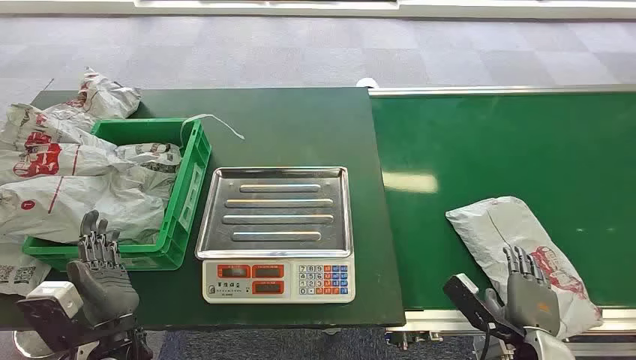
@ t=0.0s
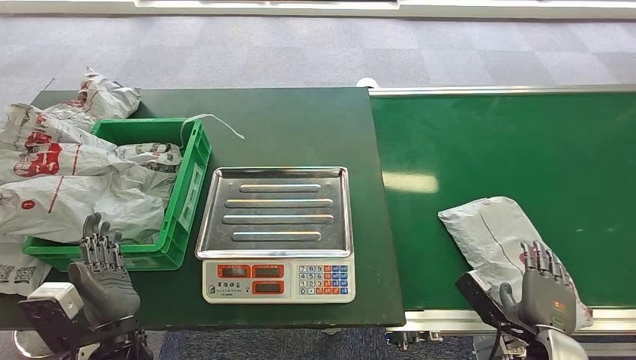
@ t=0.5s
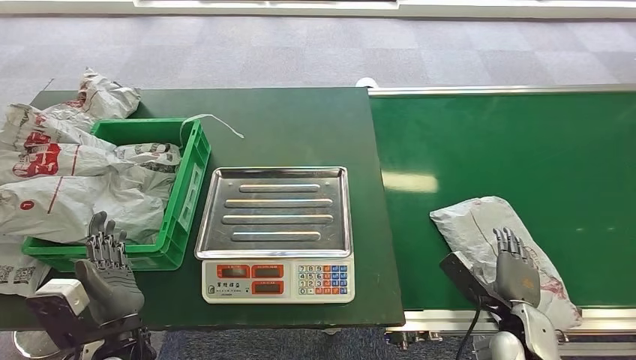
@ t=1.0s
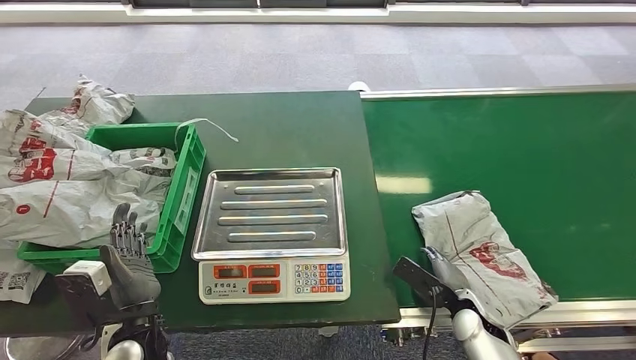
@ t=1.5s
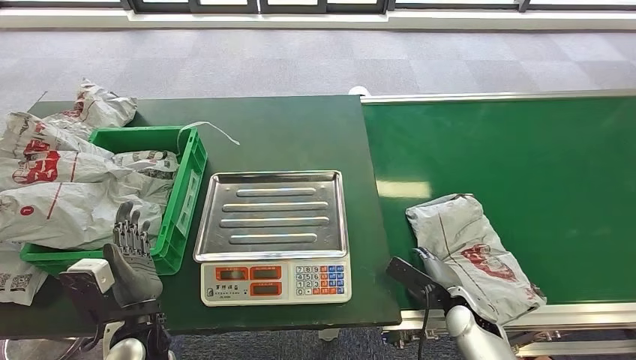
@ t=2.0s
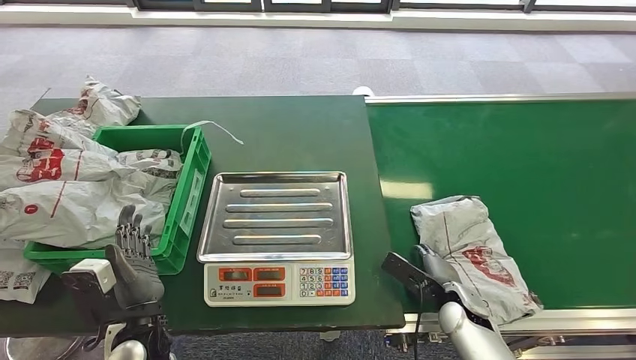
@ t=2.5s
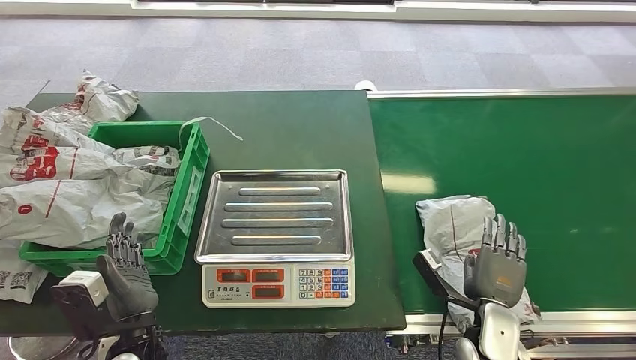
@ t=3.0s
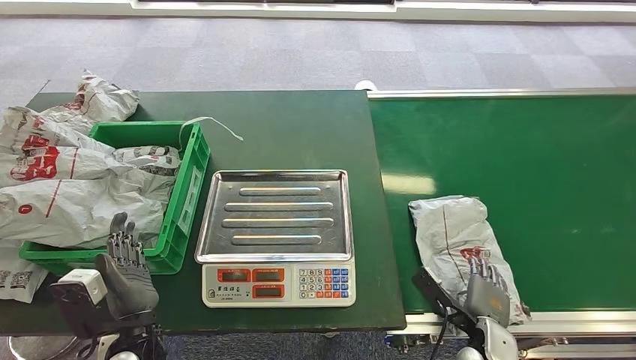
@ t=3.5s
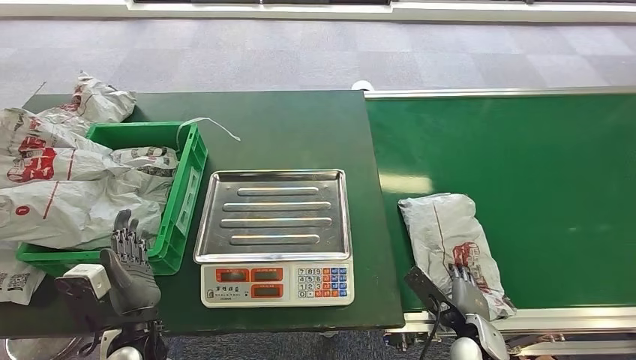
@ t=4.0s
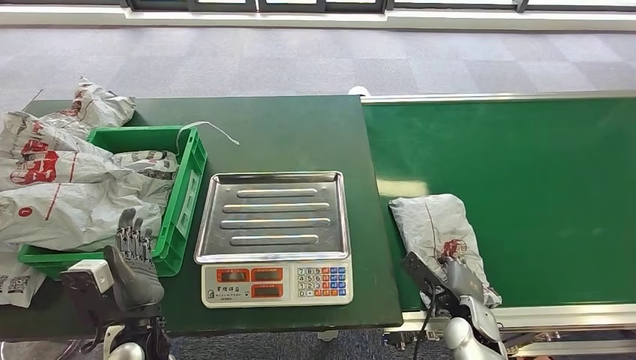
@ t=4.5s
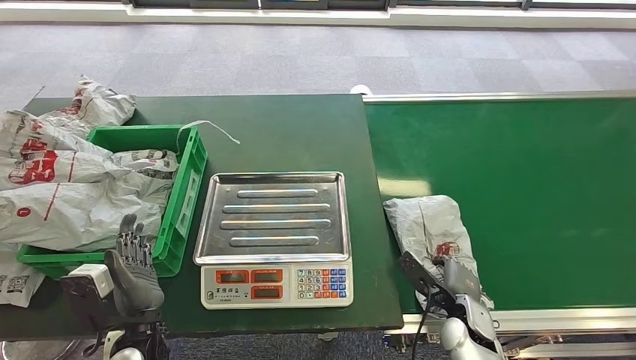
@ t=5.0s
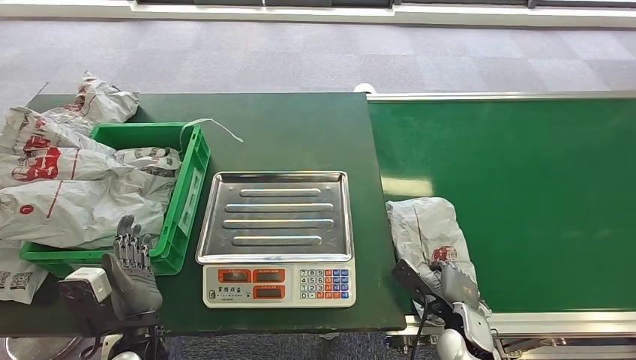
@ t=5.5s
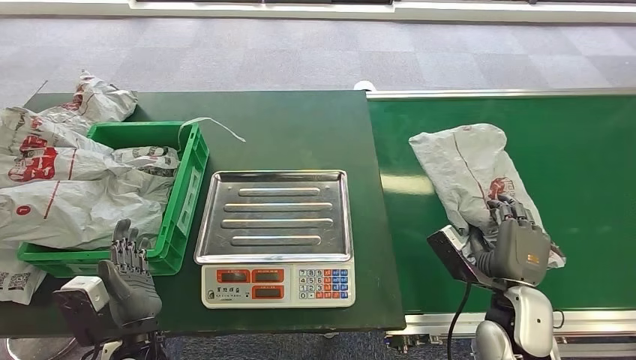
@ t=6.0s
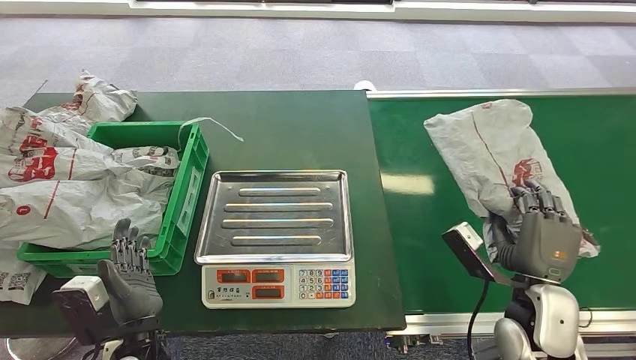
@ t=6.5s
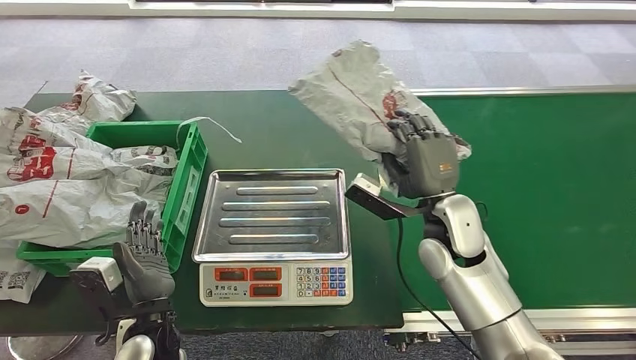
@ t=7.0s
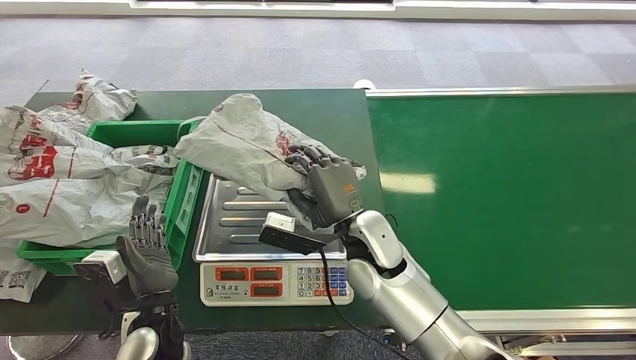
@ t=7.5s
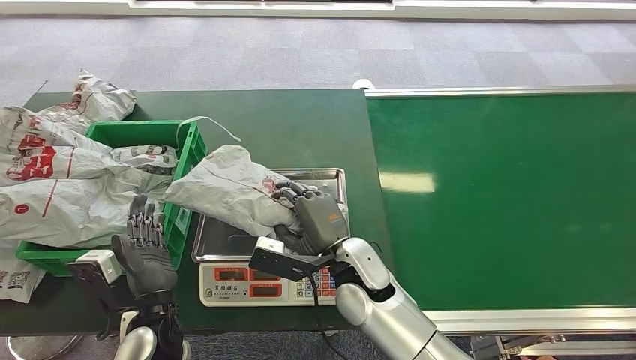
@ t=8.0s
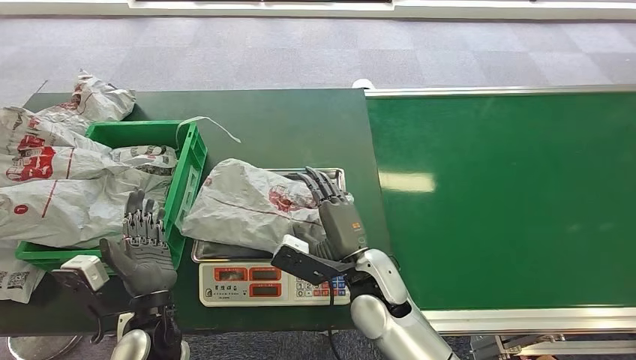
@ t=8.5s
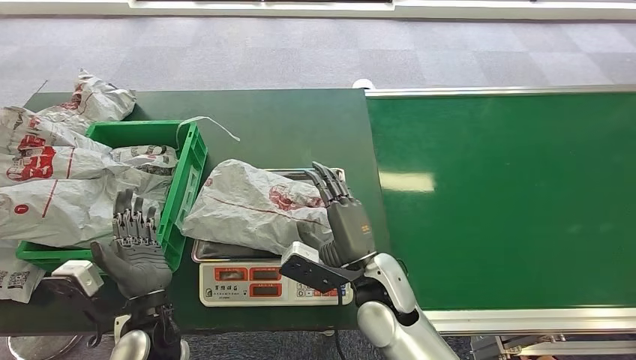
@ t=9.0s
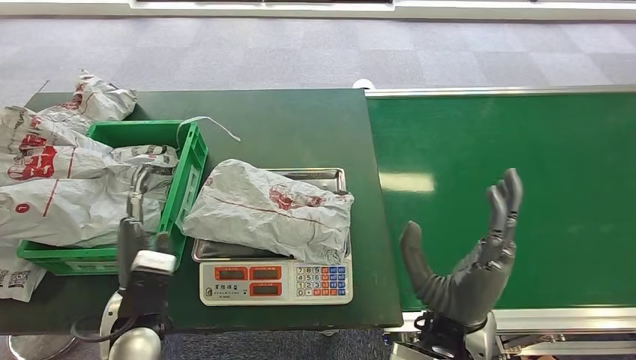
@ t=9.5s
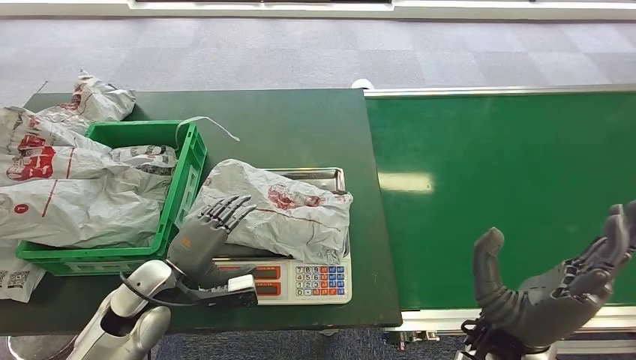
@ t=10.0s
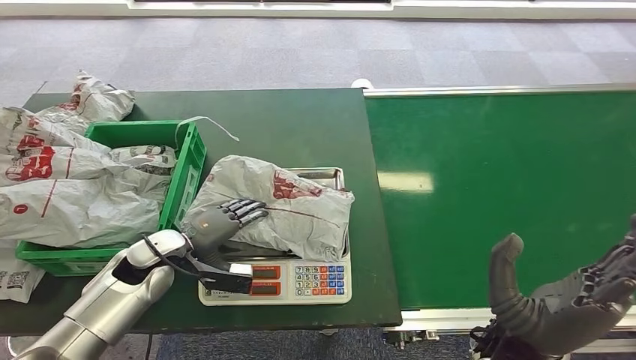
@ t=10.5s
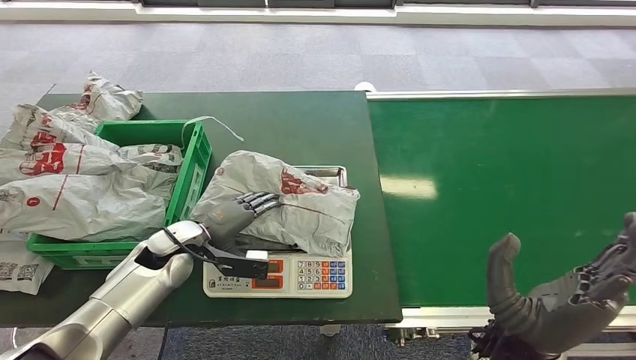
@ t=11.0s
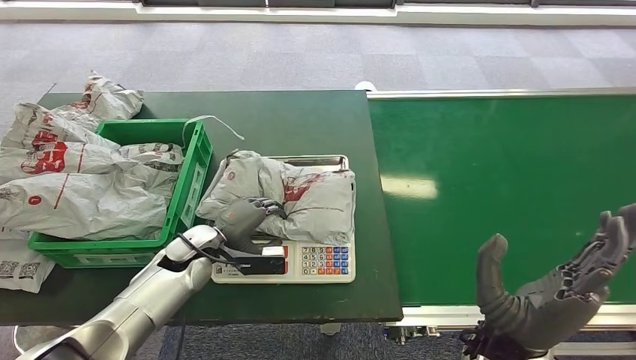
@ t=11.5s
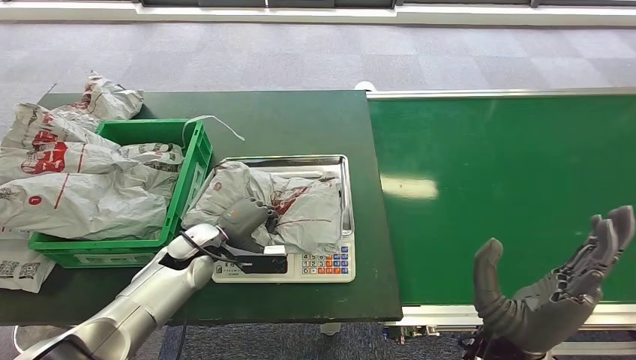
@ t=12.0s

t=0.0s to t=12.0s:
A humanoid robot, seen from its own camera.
Task of the whole recording: Weigh the package on the weighing device and place it in the left basket.
Step, t=0.0s to t=6.0s: Pick up the package from the conveyor belt.
Step, t=6.5s to t=9.5s: Place the package onto the inbound machine.
t=4.0s to t=6.0s: The right hand travels upward by roughly 15 cm.
t=8.0s to t=10.0s: The right hand goes approximately 20 cm to the right and backward; the left hand travels forward by approximately 5 cm.

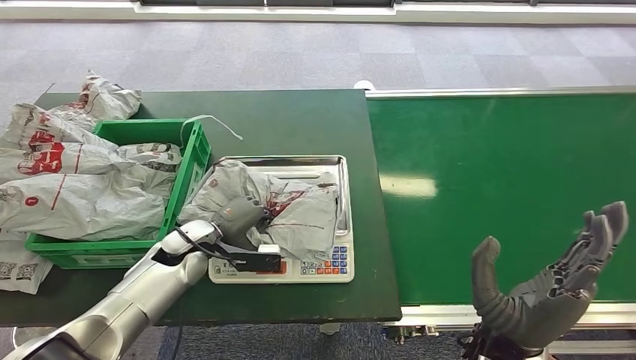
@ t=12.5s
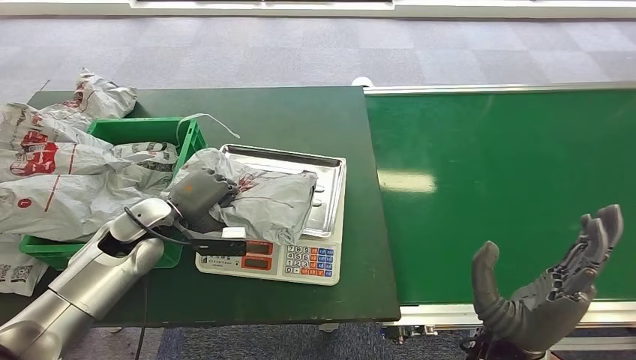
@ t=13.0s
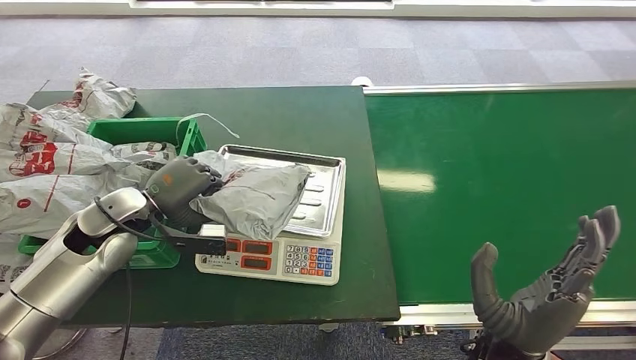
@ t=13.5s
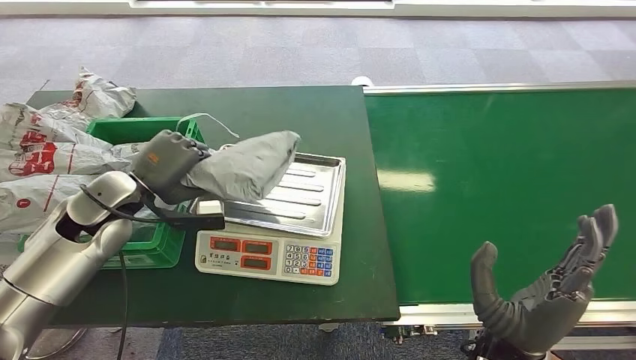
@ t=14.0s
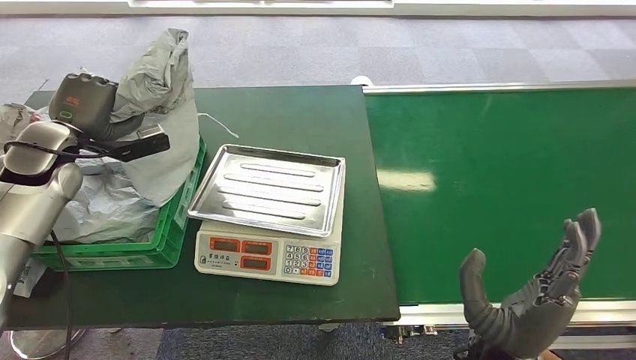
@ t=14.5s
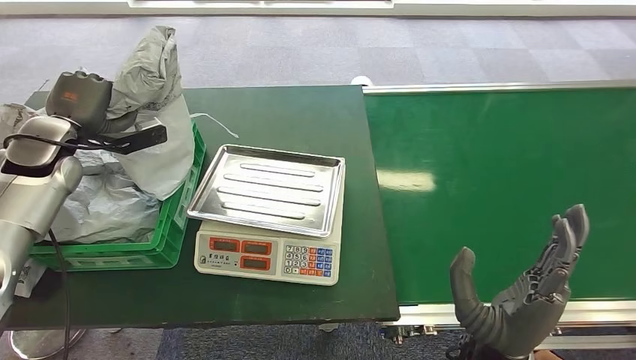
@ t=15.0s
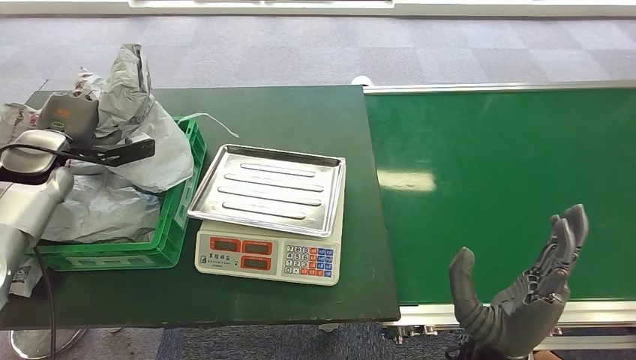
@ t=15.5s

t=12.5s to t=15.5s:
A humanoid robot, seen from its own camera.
Task of the whole recording: Weigh the package on the weighing device and place it in the left basket.
Step, t=14.5s to t=15.5s: Place the package into the parcel locker.
t=14.0s to t=15.5s: The left hand is displaced to the left and forward by approximately 15 cm.

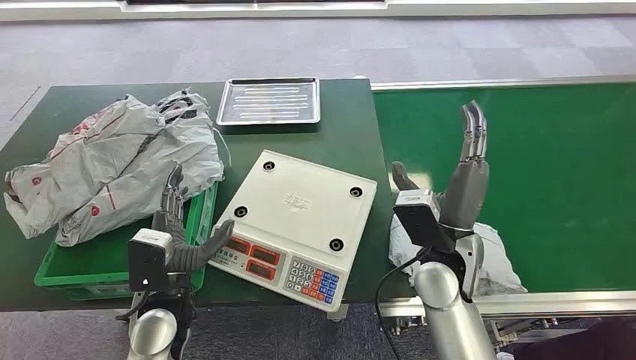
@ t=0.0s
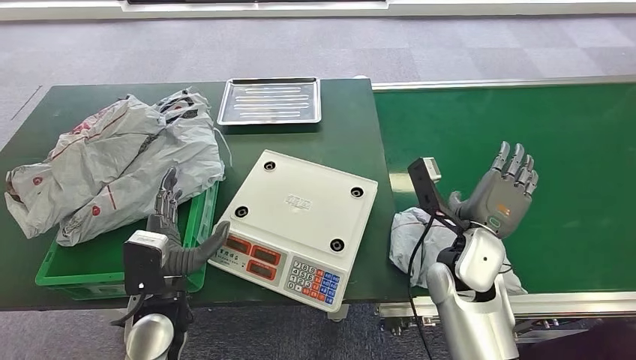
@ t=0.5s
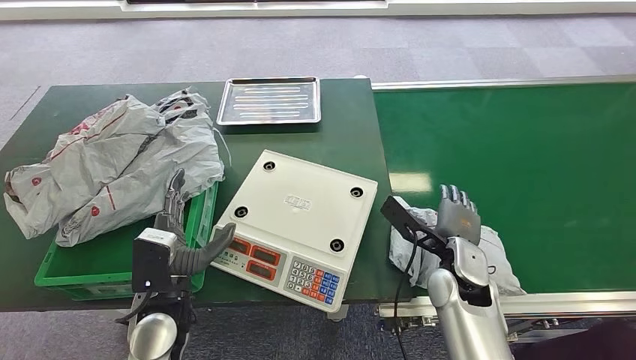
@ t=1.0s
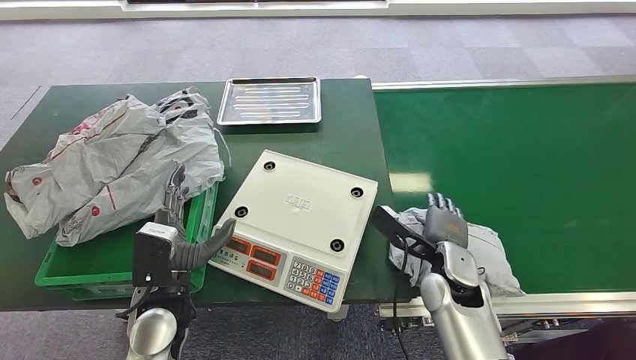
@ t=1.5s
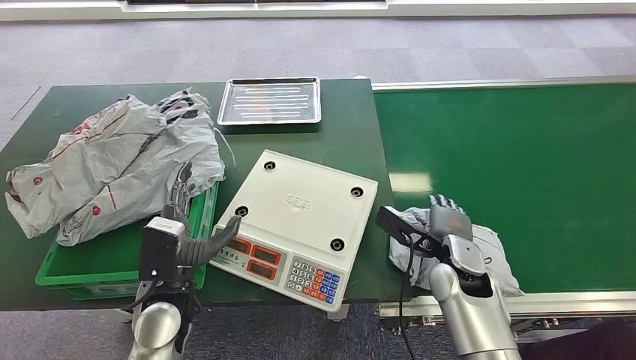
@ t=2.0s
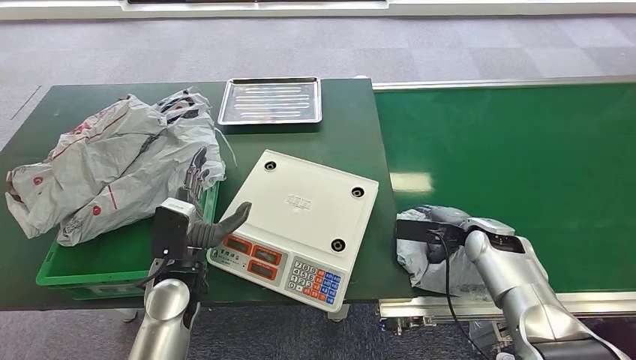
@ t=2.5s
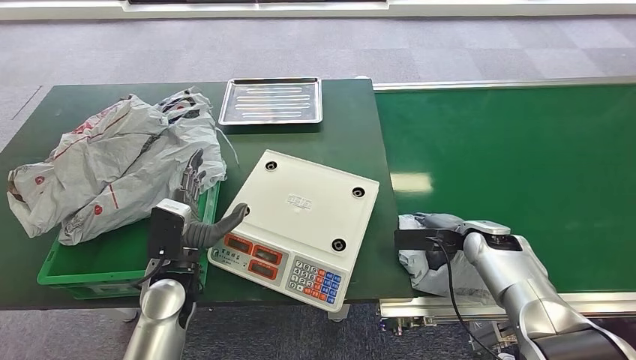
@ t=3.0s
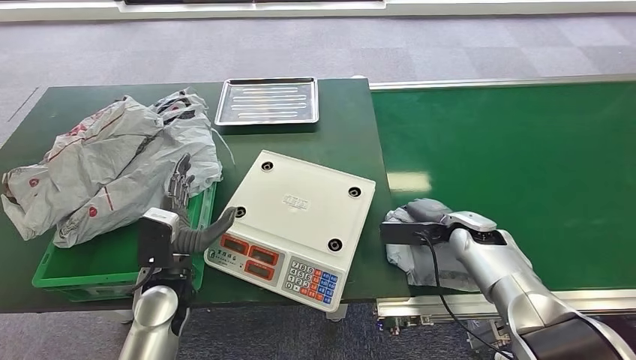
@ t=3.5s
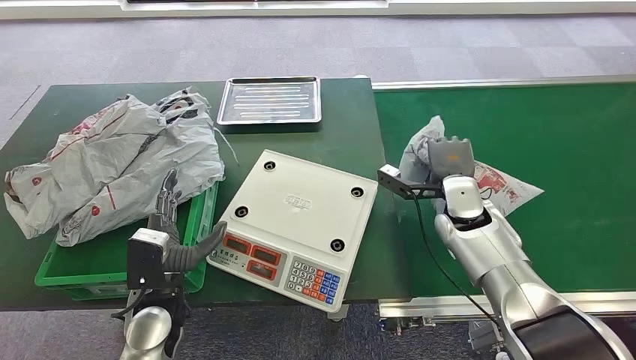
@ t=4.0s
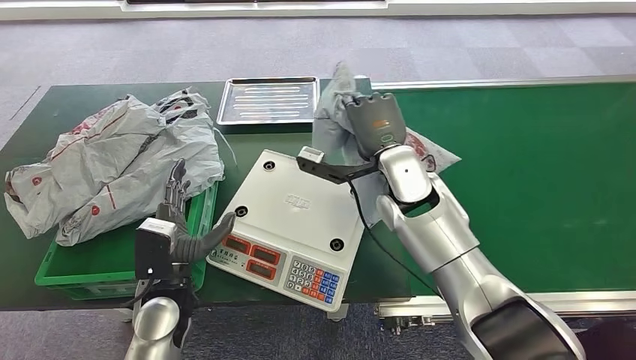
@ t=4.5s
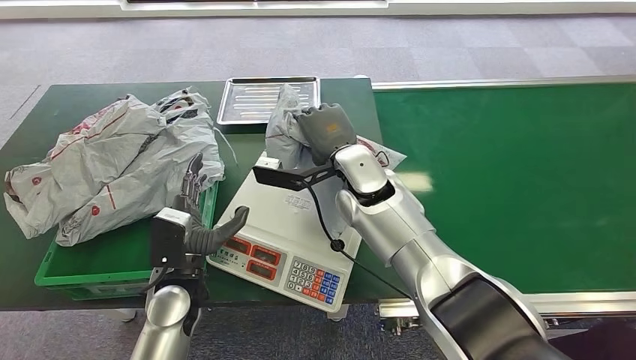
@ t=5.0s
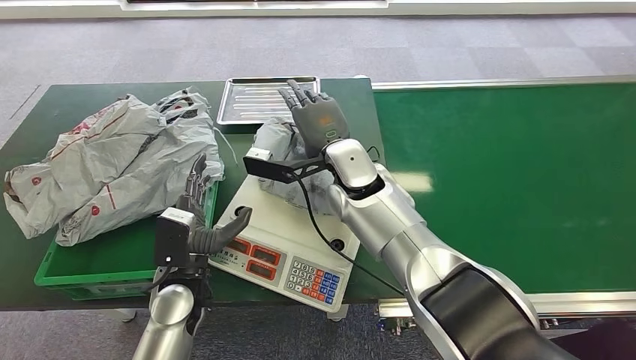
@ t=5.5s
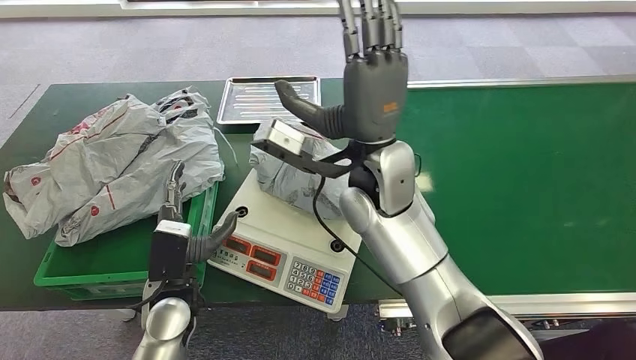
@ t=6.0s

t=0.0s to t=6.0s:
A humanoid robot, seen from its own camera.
Task of the whole recording: Weigh the package on the weighing device and place it in the left basket.
Step, t=0.0s to t=4.0s: Pick up the package from the conveyor belt.
Step, t=4.5s to t=6.0s: Place the package onto the inbound machine.
t=2.0s to t=4.0s: The right hand heads forward, covering approximately 10 cm, and travels to the right and back again, some 10 cm each way.
